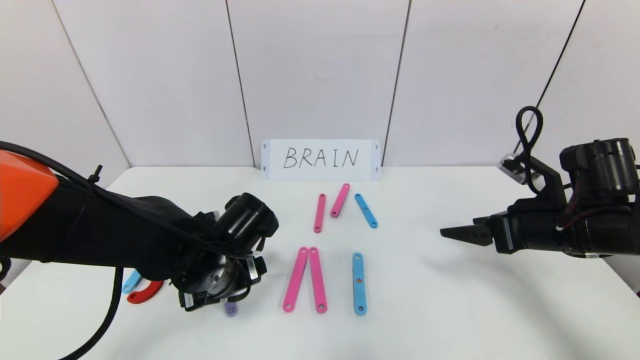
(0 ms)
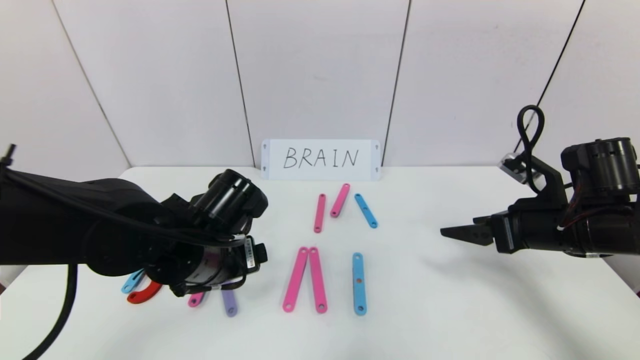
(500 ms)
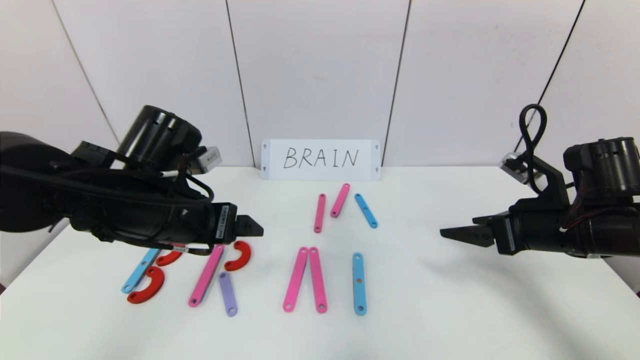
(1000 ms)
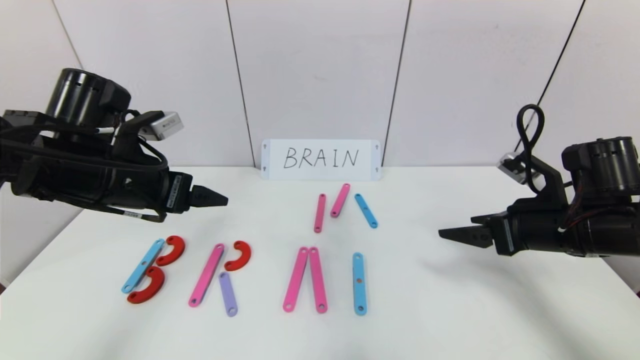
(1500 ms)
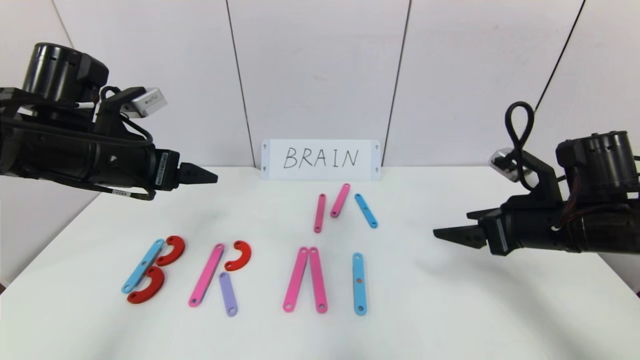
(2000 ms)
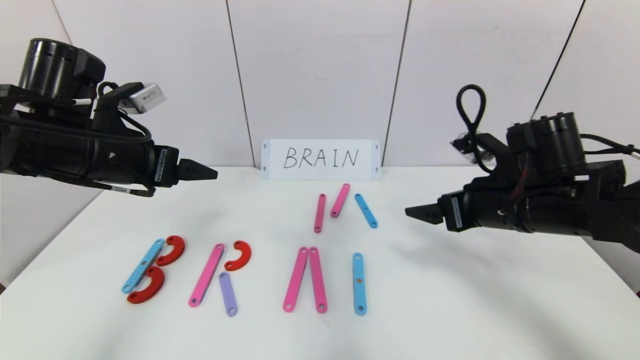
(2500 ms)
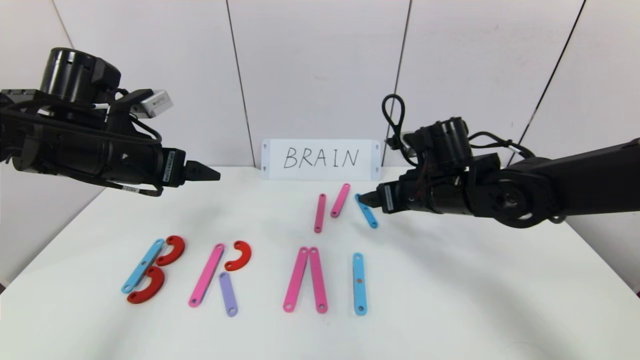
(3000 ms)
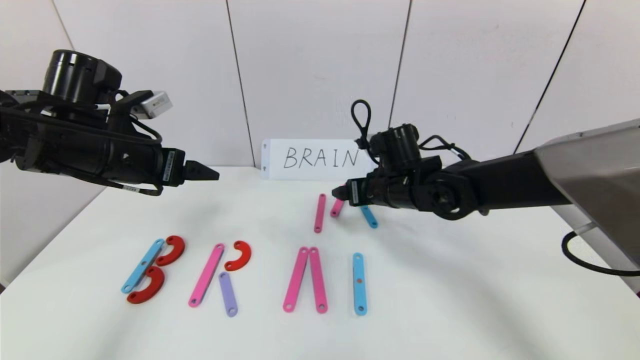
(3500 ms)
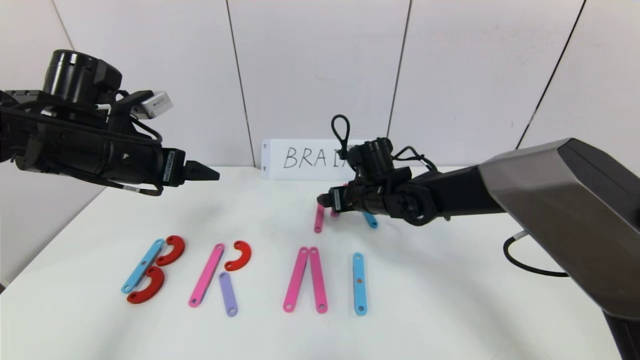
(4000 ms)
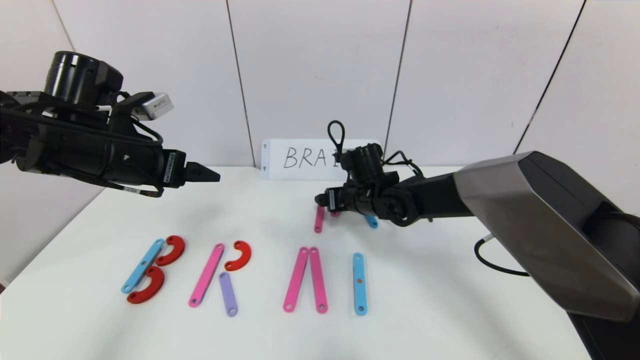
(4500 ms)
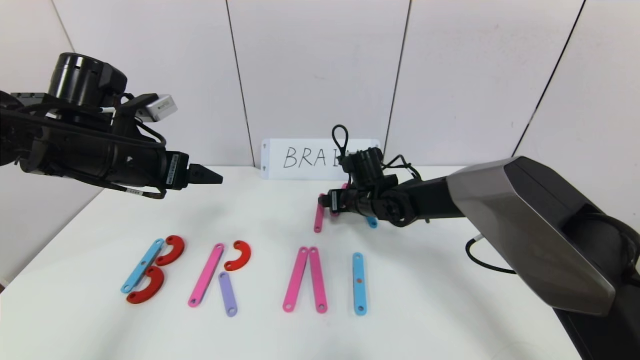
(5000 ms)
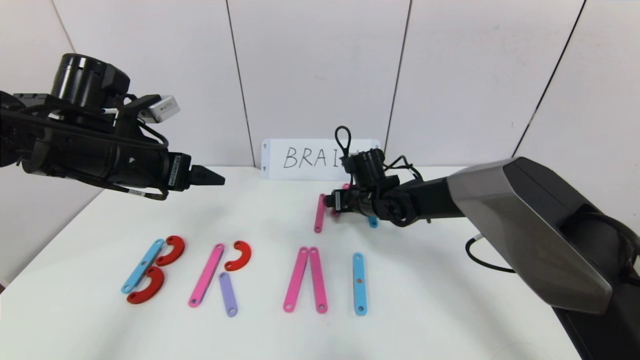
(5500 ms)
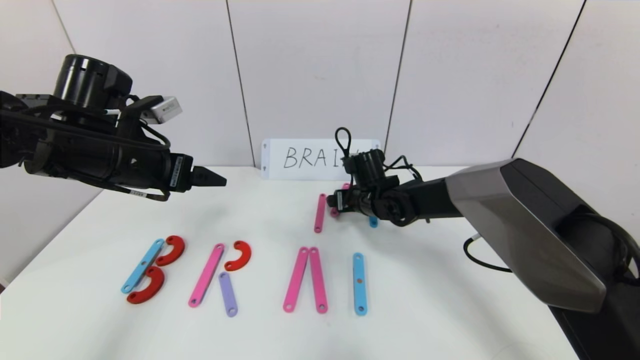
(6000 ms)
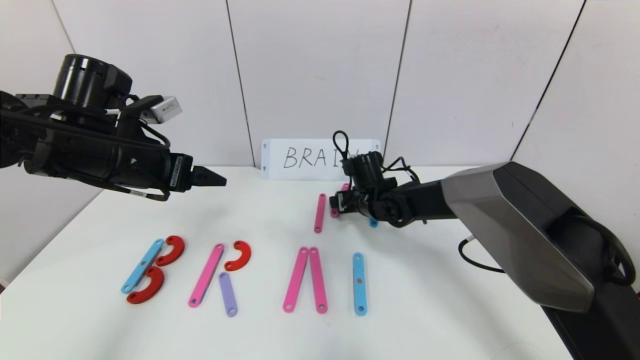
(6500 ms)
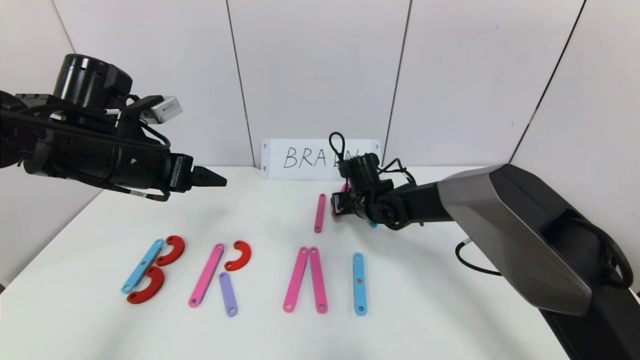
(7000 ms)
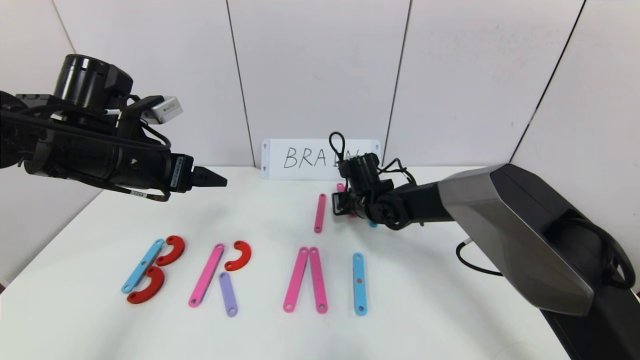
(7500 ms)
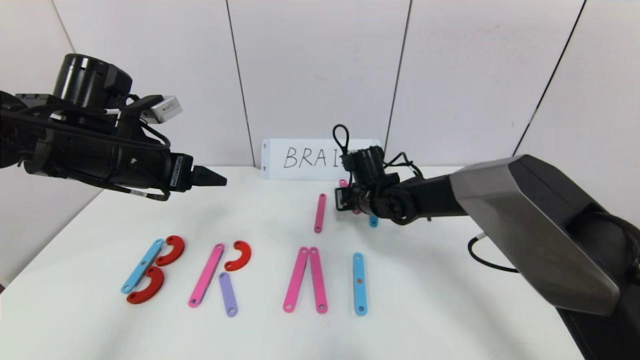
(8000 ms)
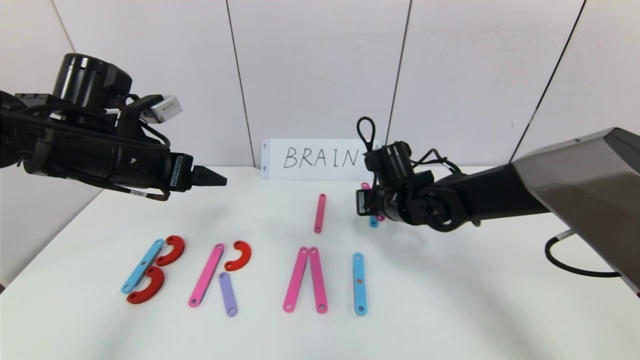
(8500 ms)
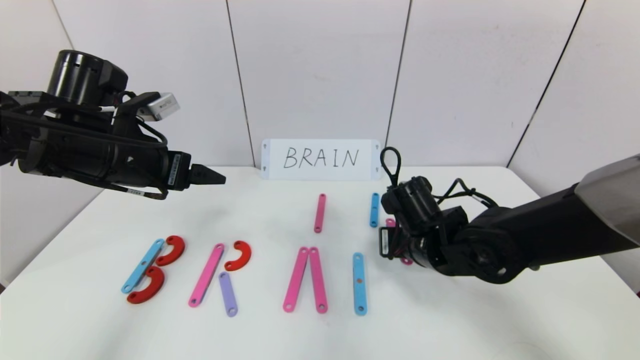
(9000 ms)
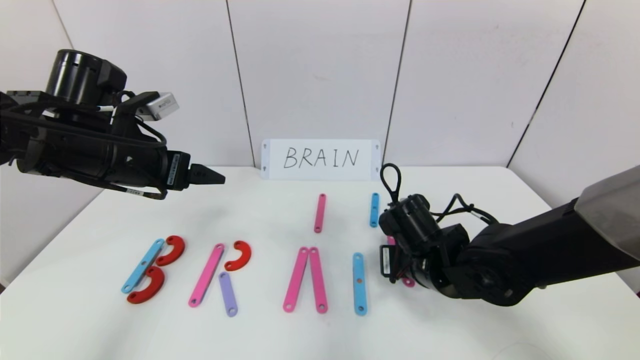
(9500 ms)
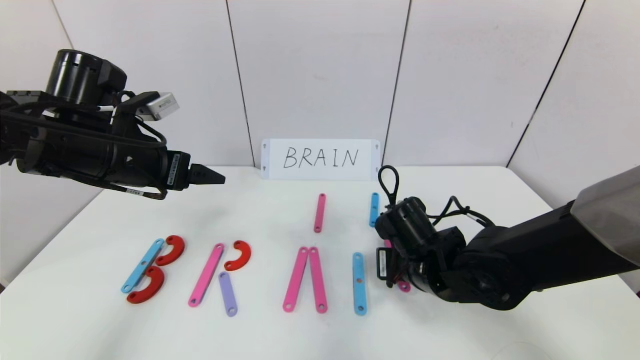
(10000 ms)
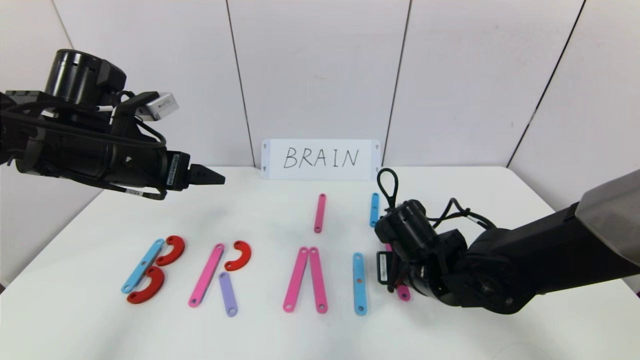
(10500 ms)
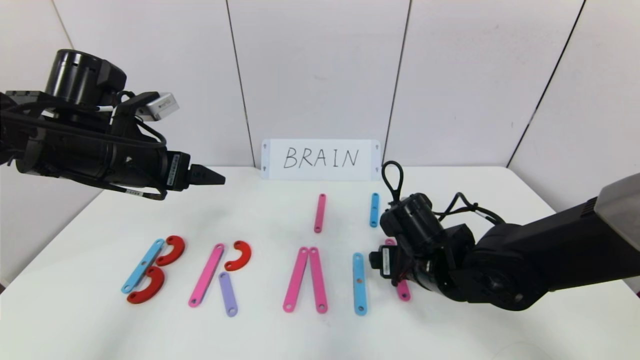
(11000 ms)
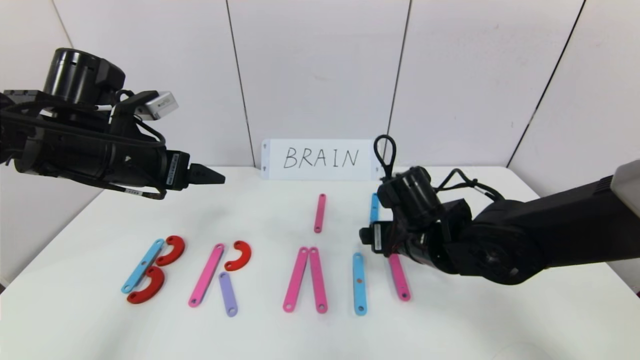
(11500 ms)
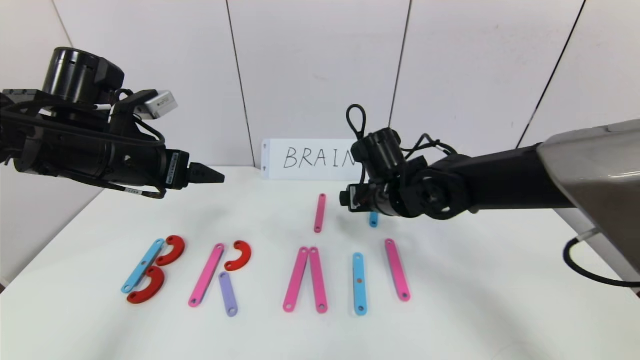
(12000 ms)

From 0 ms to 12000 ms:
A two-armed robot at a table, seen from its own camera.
Task of the whole recording: rearrange the word baai as brain.
From 0 ms to 2000 ms: The left gripper moves upward and to the left, approximately 20 cm.
From 2000 ms to 4000 ms: The right gripper is displaced to the left and forward by approximately 25 cm.
From 4000 ms to 6000 ms: The right gripper changes place by approximately 5 cm.
From 6000 ms to 8000 ms: The right gripper closes its fingers.
From 8000 ms to 10000 ms: The right gripper travels backward by about 15 cm.
From 10000 ms to 12000 ms: The right gripper heads forward and upward, covering approximately 10 cm, and opens its fingers.

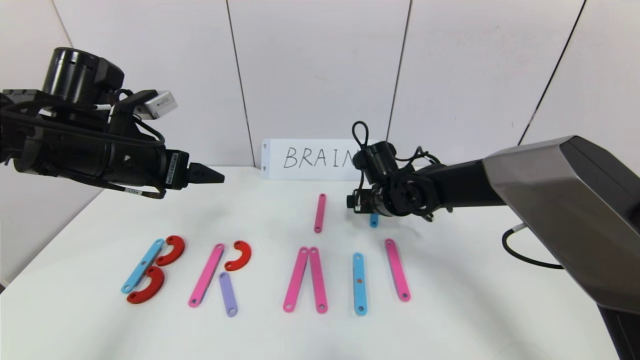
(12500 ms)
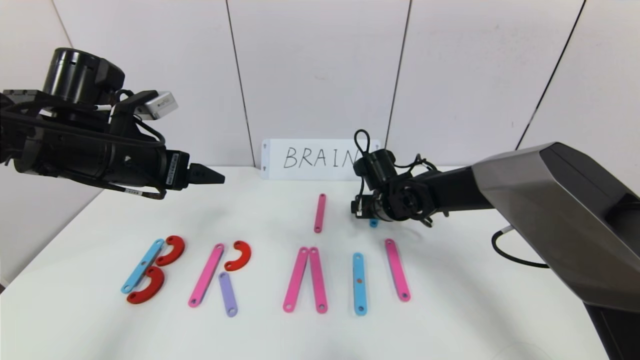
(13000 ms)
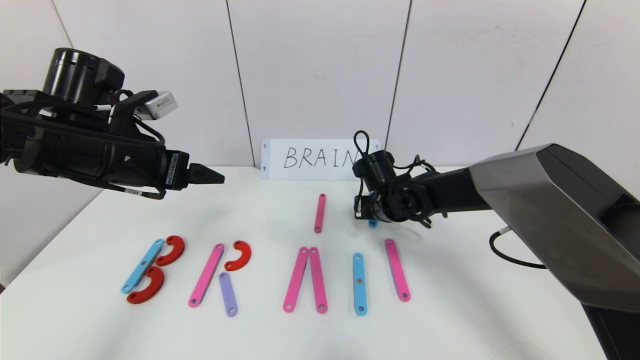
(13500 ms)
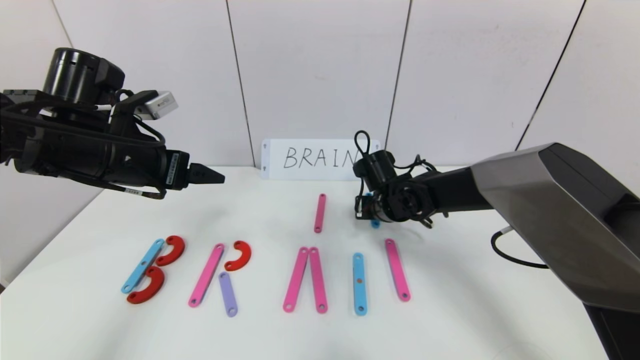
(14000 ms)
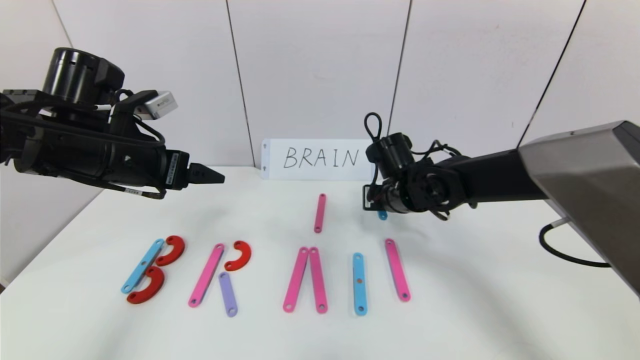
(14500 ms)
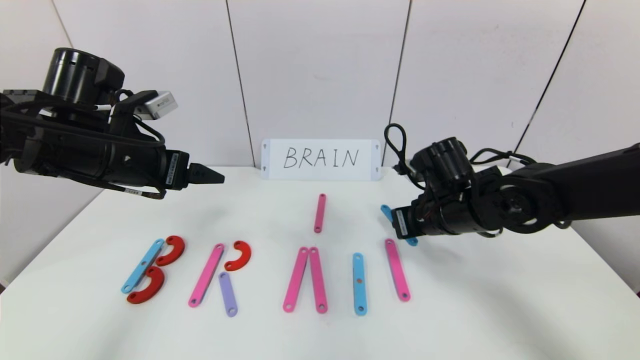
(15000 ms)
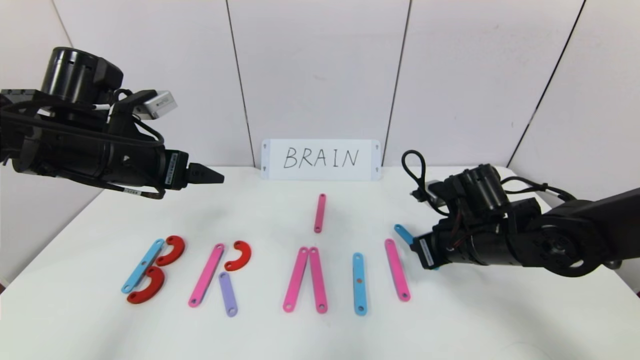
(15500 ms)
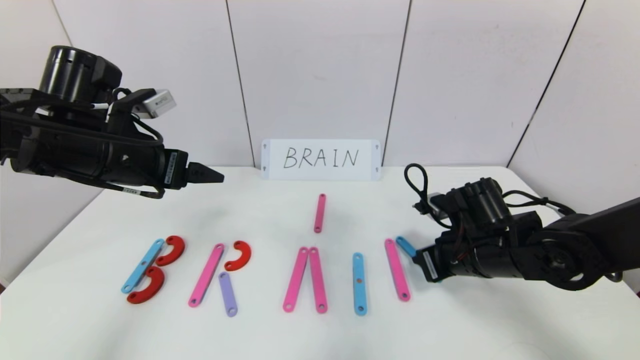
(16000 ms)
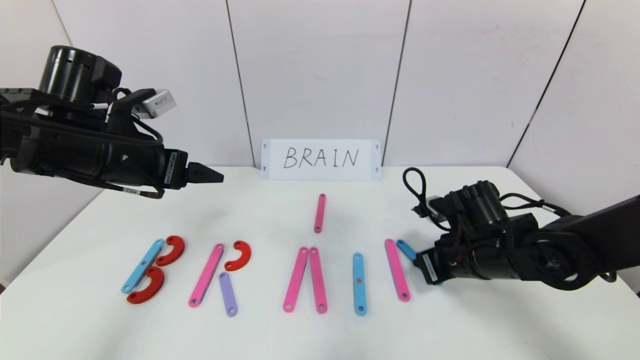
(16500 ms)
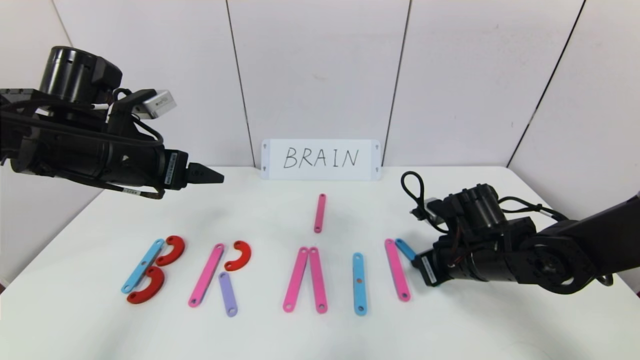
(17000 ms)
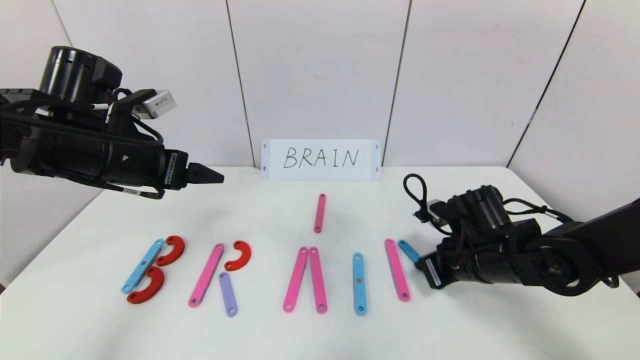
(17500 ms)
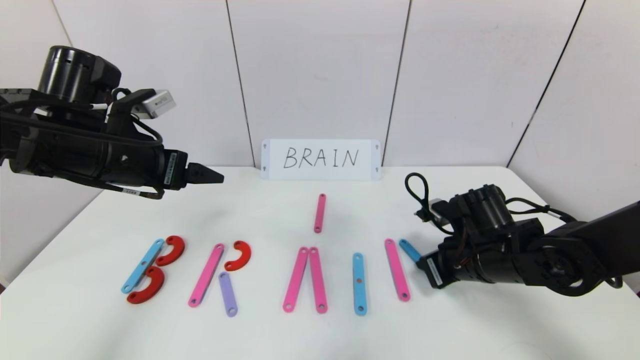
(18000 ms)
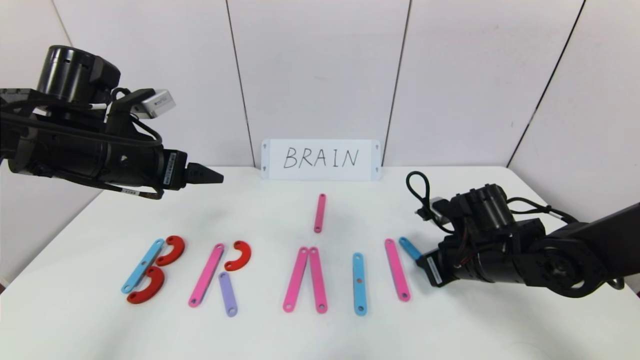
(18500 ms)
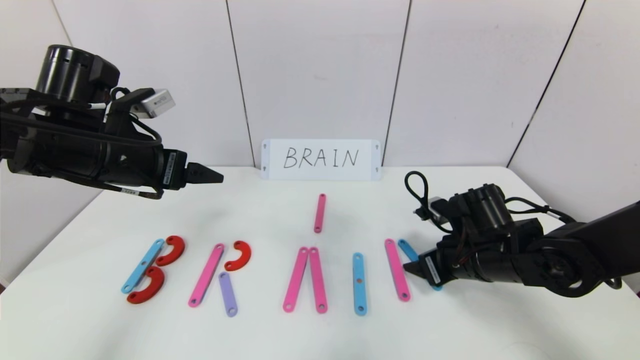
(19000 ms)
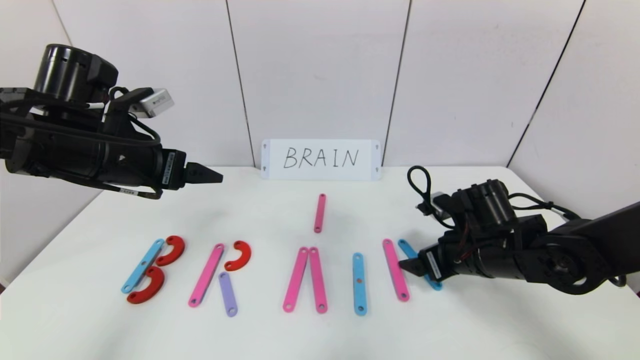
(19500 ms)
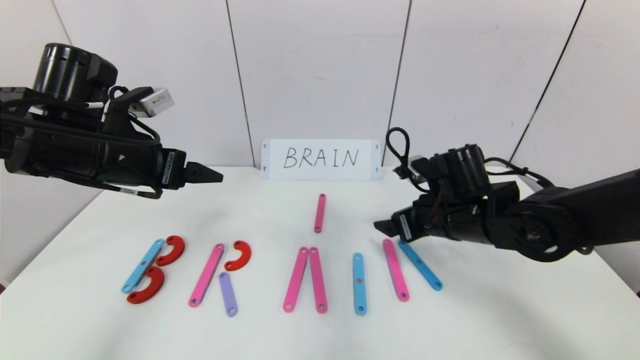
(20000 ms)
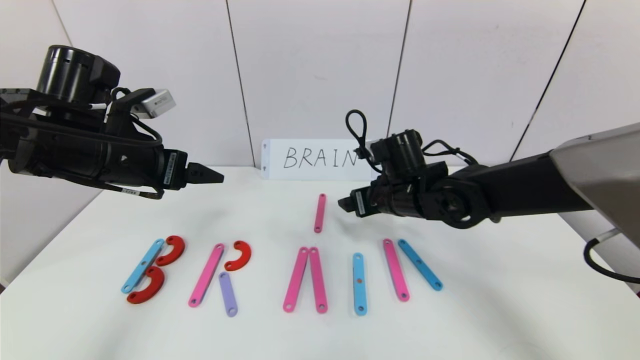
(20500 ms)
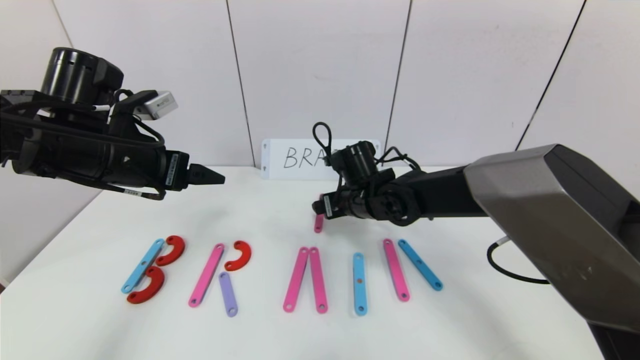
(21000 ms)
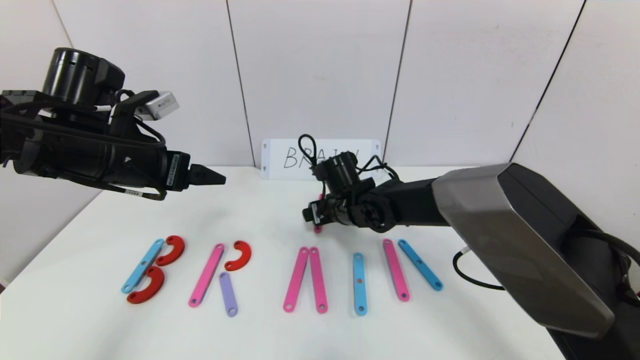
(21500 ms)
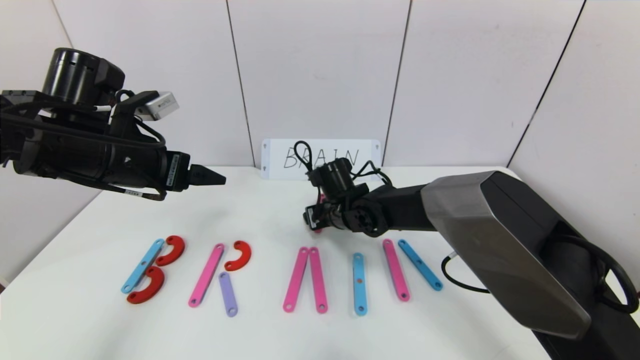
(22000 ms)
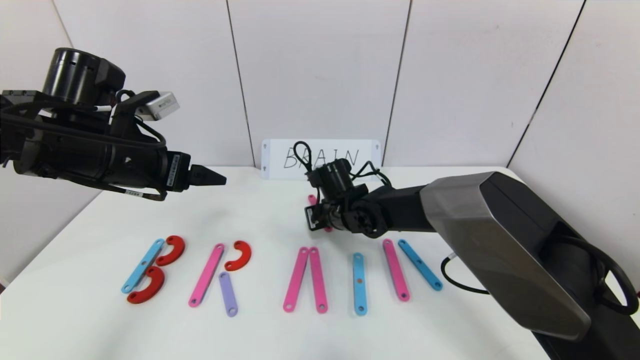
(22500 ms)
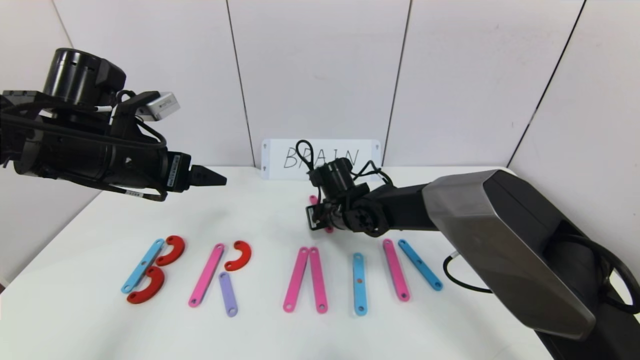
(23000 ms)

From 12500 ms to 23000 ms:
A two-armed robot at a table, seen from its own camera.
Task of the whole recording: rearrange the word baai as brain.
From 12500 ms to 14500 ms: The right gripper closes up.
From 14500 ms to 16500 ms: The right gripper travels backward and to the right by about 15 cm.
From 16500 ms to 19000 ms: The right gripper opens its fingers.
From 19000 ms to 21000 ms: The right gripper moves to the left and forward, roughly 20 cm.
From 21000 ms to 23000 ms: The right gripper moves some 5 cm, and closes its fingers.
